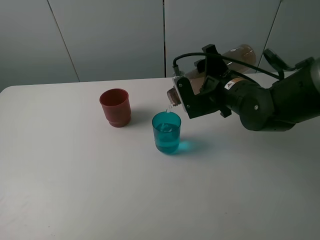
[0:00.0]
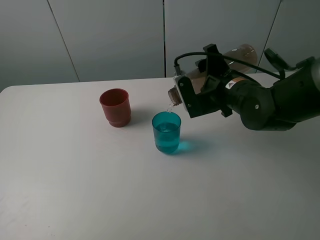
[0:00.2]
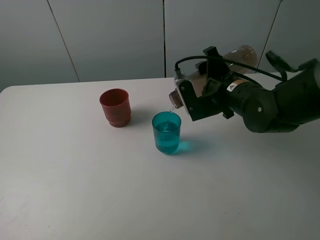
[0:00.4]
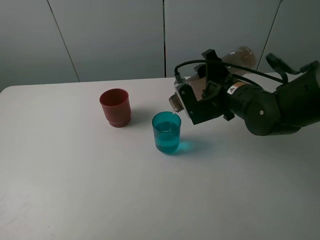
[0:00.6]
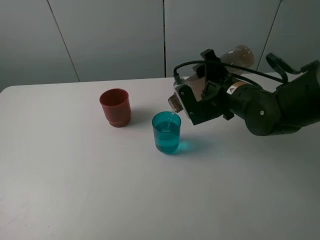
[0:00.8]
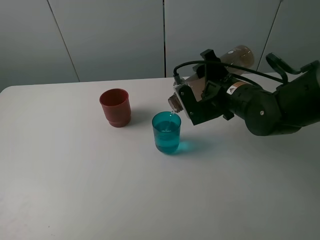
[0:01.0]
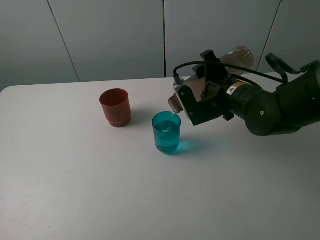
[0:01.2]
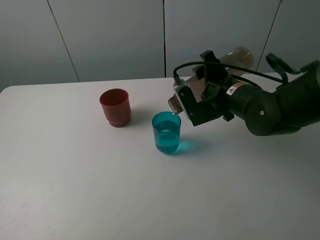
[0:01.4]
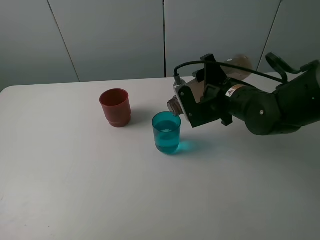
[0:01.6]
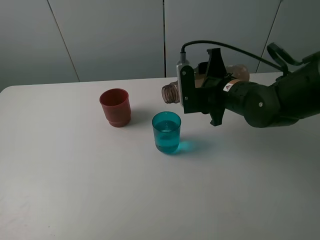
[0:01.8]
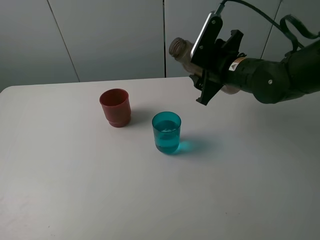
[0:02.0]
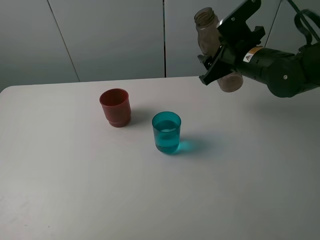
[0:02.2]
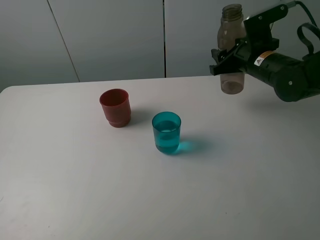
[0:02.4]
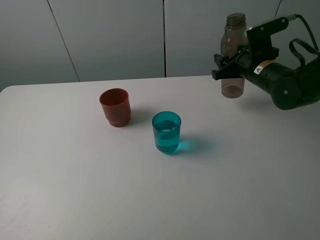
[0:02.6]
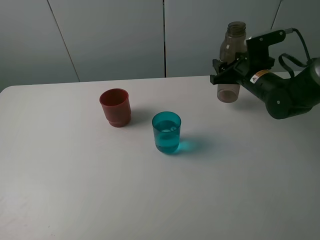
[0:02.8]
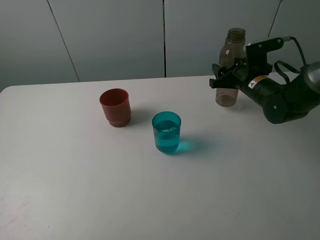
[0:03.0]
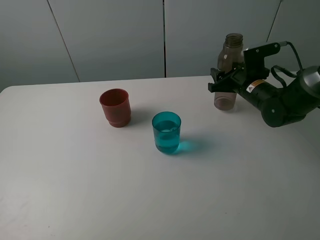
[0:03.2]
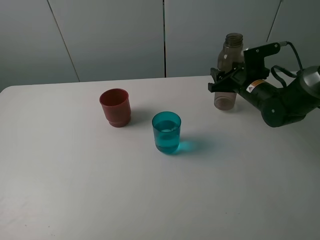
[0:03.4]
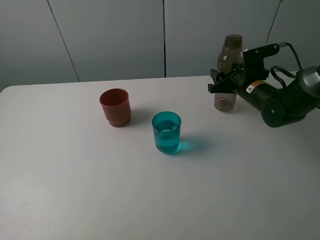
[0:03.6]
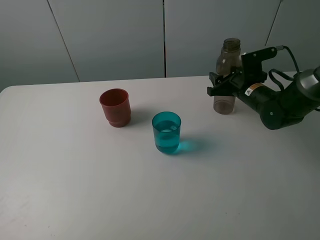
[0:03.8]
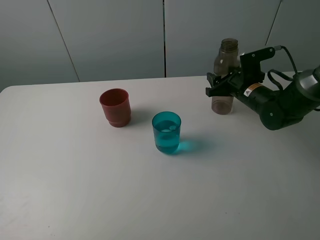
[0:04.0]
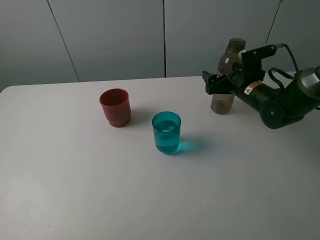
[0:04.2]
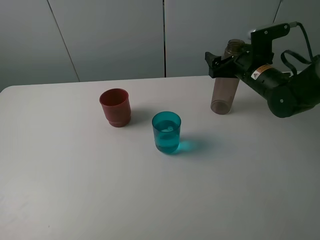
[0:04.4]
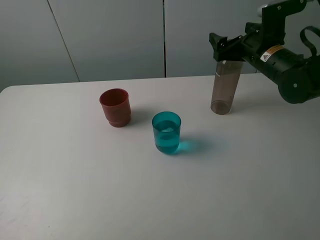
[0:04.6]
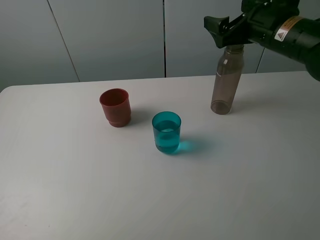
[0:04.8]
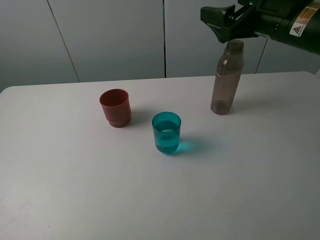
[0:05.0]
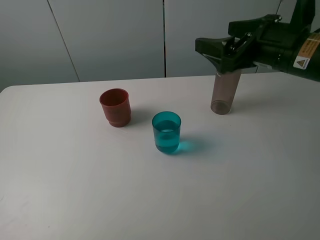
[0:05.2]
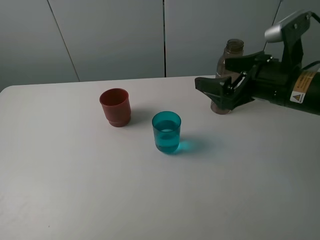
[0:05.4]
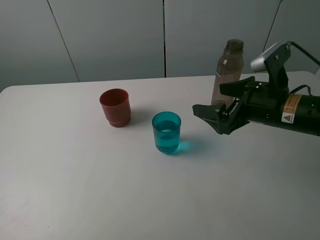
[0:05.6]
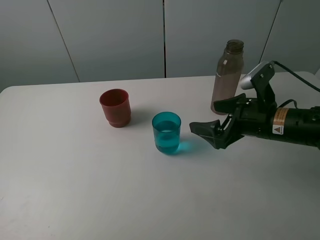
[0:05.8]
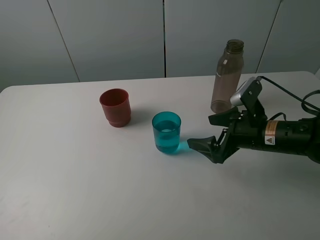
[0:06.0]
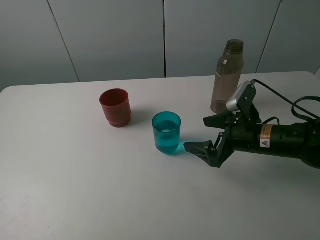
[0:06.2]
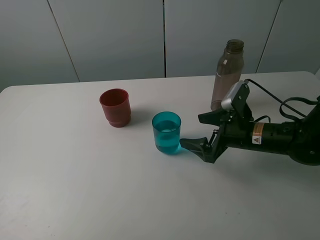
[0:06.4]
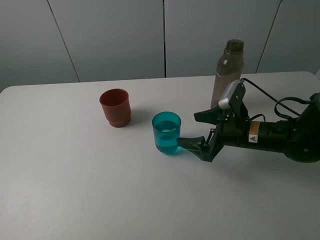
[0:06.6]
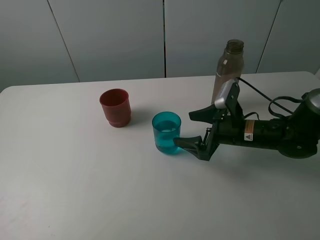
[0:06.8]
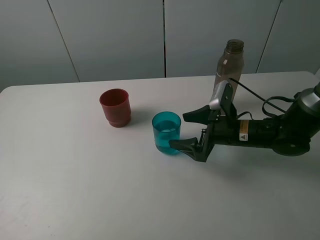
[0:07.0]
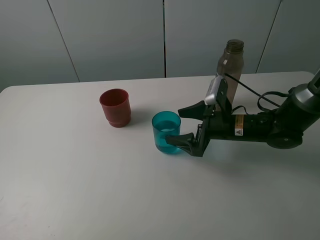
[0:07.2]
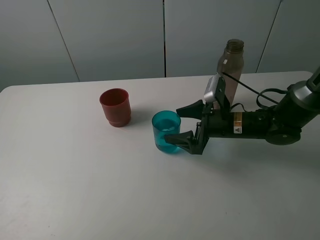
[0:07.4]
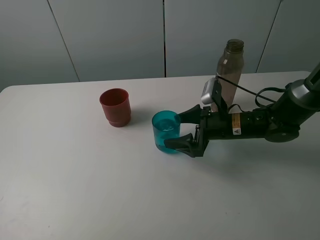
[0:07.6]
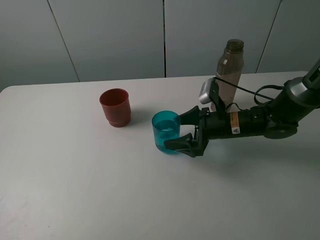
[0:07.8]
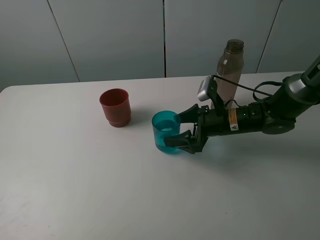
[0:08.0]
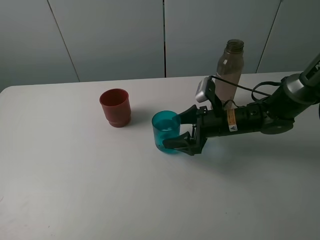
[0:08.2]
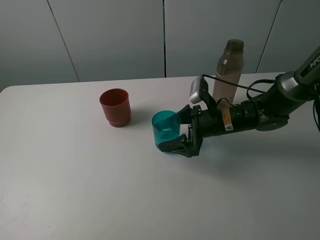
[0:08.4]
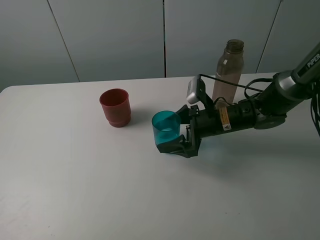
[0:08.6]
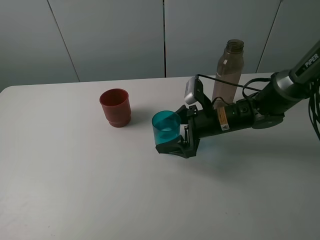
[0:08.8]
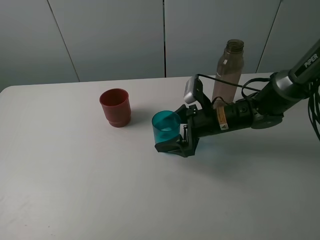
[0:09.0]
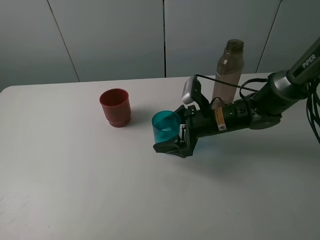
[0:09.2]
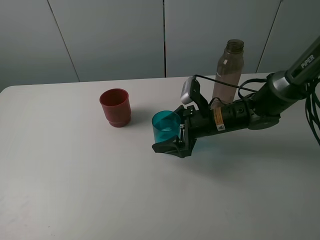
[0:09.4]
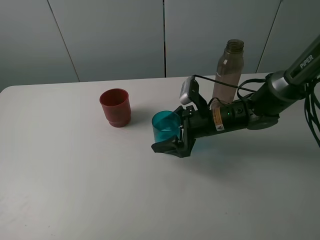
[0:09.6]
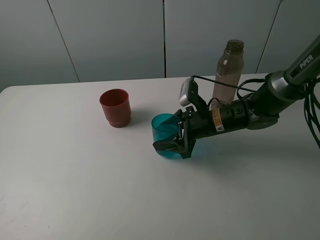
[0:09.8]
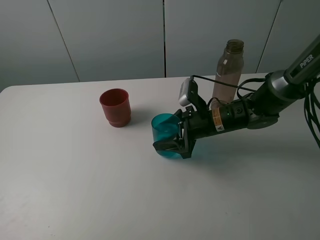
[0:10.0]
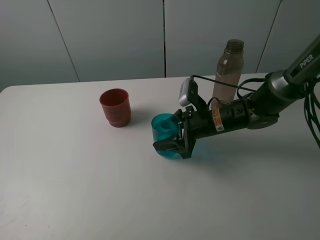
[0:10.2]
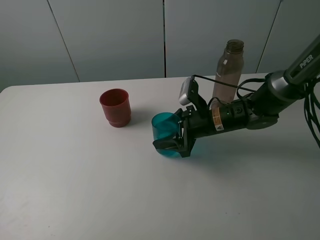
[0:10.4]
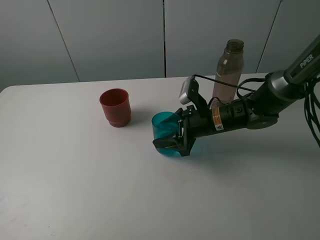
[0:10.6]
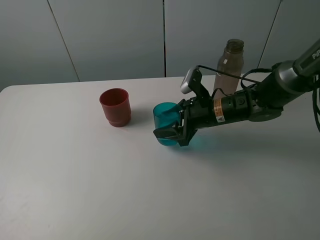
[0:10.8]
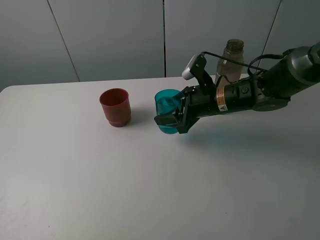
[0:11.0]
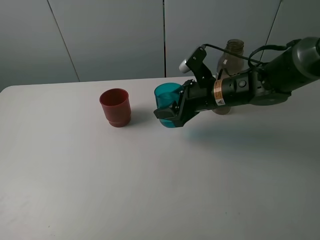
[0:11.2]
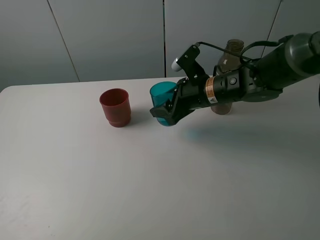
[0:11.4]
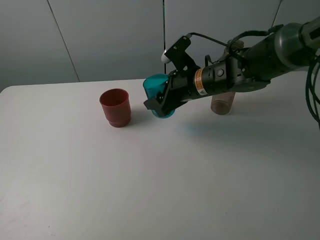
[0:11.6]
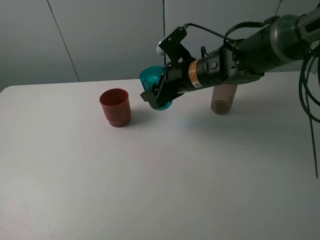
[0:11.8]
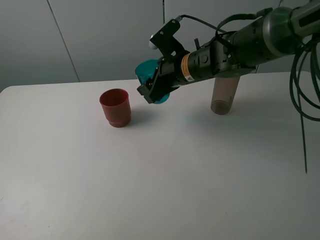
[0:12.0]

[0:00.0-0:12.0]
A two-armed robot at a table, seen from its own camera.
Task of the whole recording: pick up the bottle and pour water into the cup, then pick up the cup containing water and pour it into another cup.
Step, 0:02.0 to 0:04.2: Place the brown bottle with the right gripper.
Step, 0:04.4 to 0:10.0: Grasp the blue cup with the right gripper.
0:00.0 to 0:01.6: The grippers stay close to where they were, moving slightly.
0:01.6 to 0:03.0: The right gripper moves forward and to the right, some 10 cm.
0:03.0 to 0:04.4: The right gripper opens up.
0:04.4 to 0:06.0: The right gripper goes about 15 cm backward, and reaches approximately 10 cm upward, then returns.
0:06.0 to 0:07.6: The right gripper moves forward, about 5 cm.
0:07.6 to 0:09.0: The grippers make only small movements.
0:09.0 to 0:10.4: The right gripper closes.
0:10.4 to 0:12.0: The right gripper moves upward and to the left, roughly 15 cm.

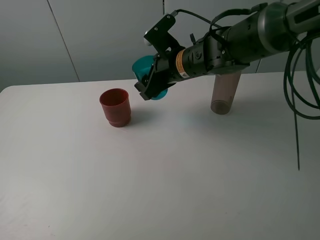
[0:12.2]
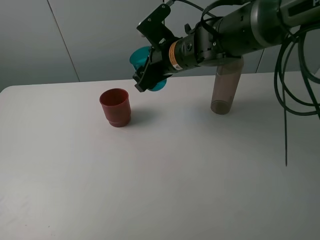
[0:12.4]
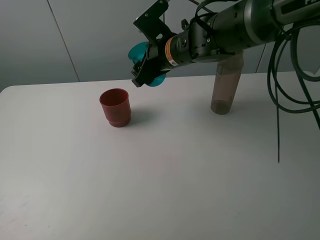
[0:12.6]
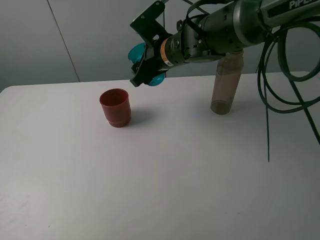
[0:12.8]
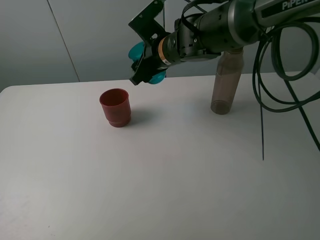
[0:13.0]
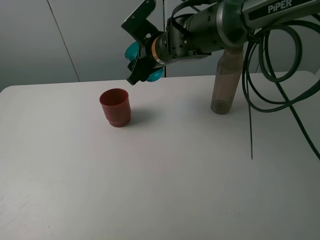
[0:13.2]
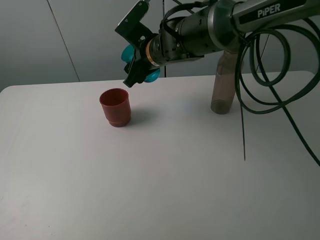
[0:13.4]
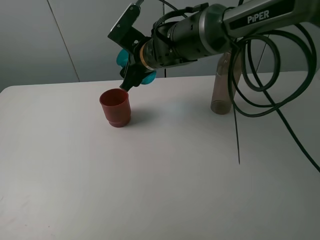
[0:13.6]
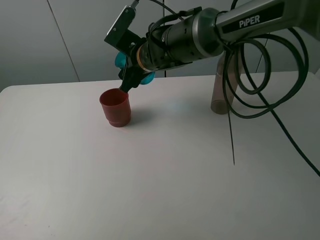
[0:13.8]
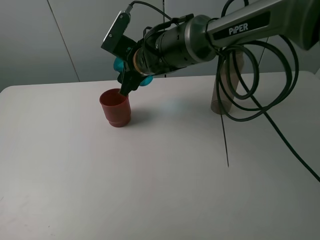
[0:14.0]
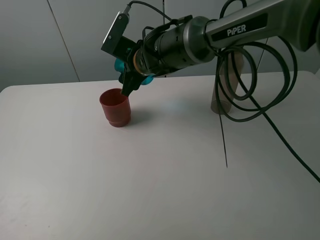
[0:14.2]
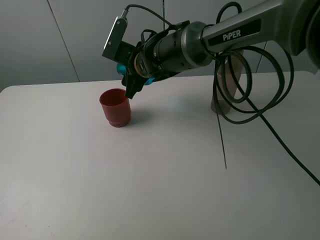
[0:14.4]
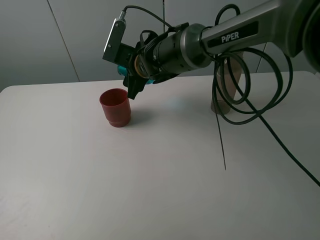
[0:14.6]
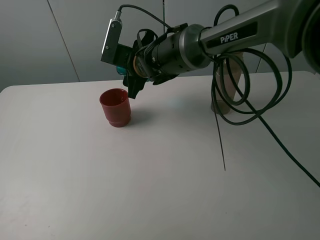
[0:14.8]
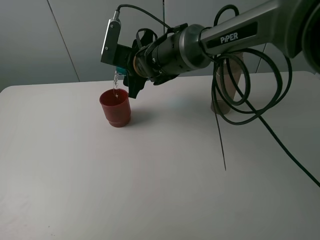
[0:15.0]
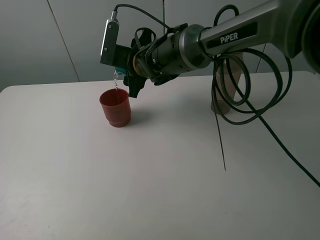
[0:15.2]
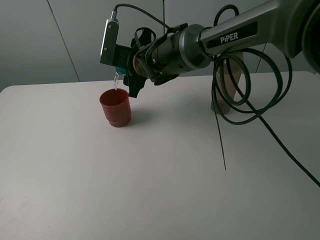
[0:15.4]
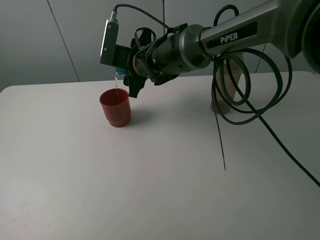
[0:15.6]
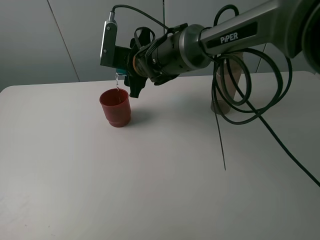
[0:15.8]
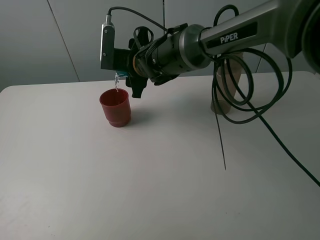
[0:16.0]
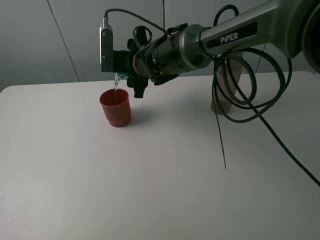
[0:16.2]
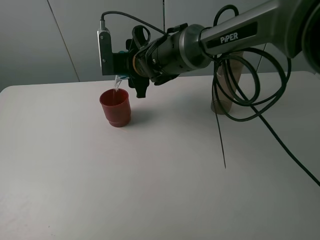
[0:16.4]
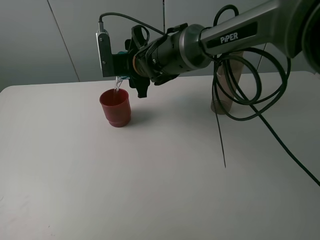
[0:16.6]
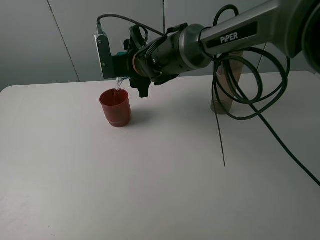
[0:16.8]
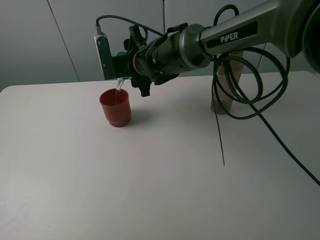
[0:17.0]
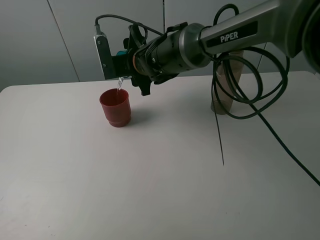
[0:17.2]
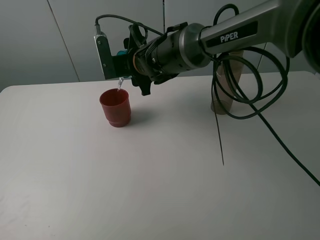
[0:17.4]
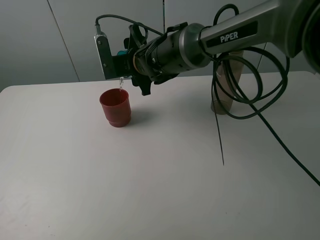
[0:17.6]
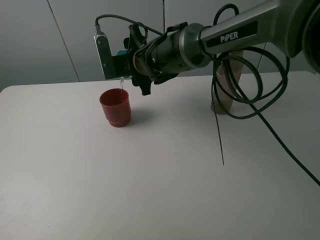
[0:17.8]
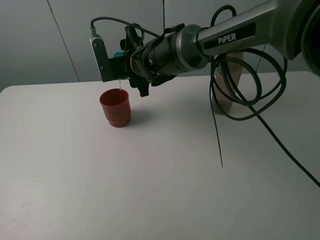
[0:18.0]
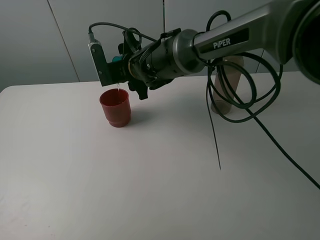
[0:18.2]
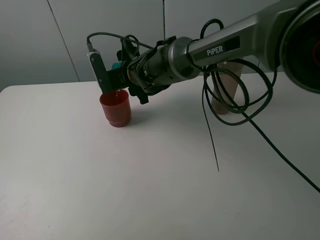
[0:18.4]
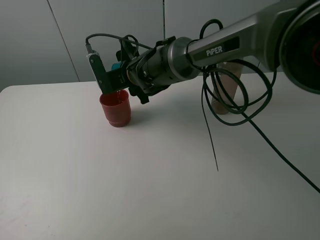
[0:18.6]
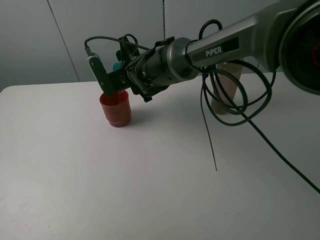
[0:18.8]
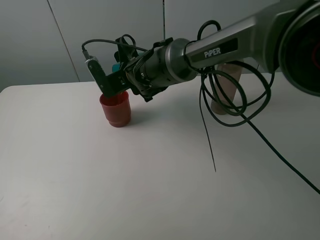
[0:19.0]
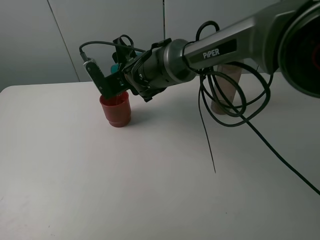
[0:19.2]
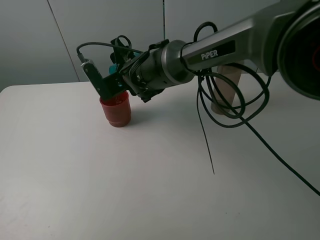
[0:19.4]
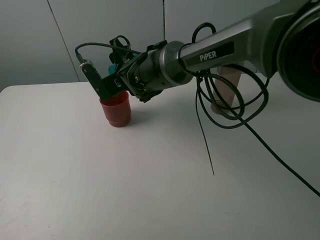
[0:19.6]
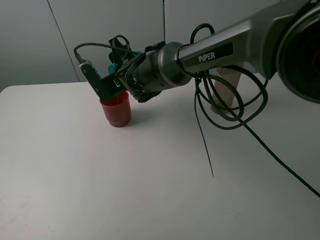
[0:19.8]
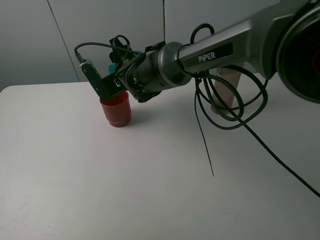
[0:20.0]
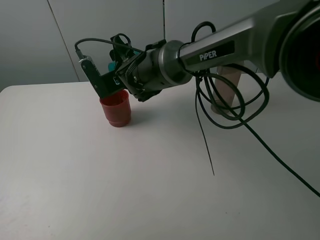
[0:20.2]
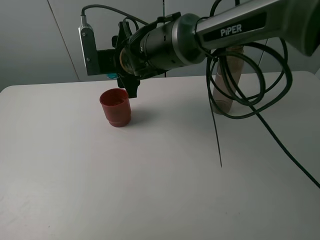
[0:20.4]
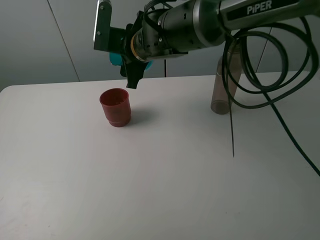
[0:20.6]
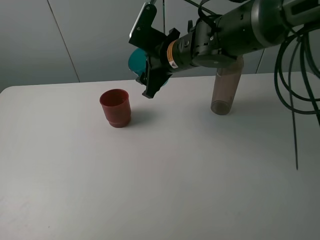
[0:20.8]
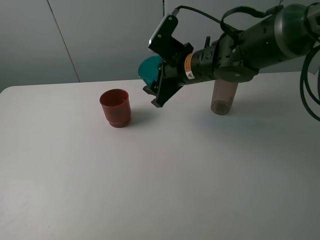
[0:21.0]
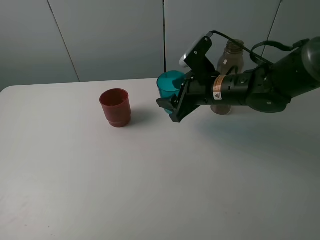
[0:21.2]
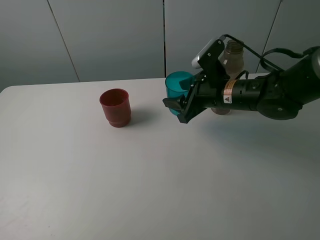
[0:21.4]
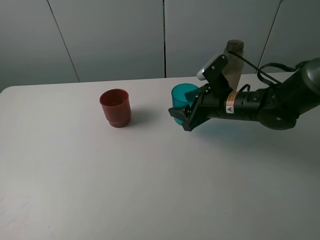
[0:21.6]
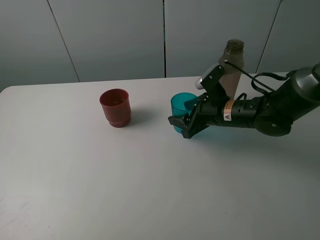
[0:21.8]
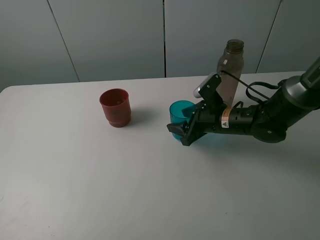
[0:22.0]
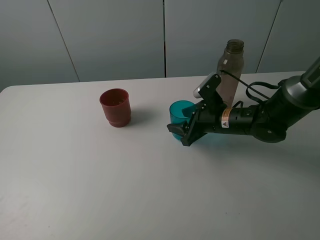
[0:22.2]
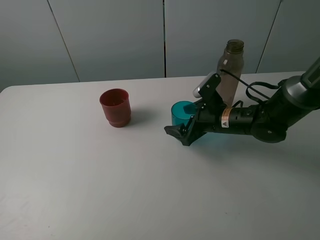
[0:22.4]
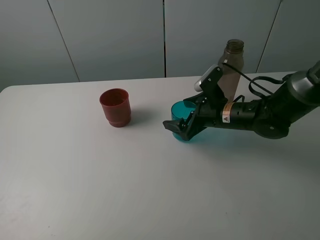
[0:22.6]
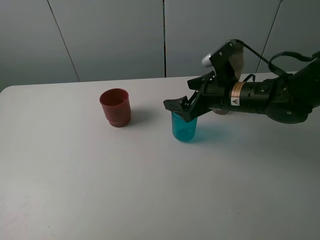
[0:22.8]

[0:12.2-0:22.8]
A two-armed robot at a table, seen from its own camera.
Task of the whole recording: pick up the bottle and pour water into the cup, then pick up the cup containing water and pour it into another cup.
Step, 0:12.2 to 0:18.4: Pour water from blue cup to red cup with the right gripper.
Step, 0:18.6 to 0:22.6: Place the blue cup with the right gripper.
0:12.2 to 0:13.8: The right gripper heads to the left, covering approximately 5 cm.
0:16.8 to 0:18.2: The grippers stay close to where they were, moving slightly.
0:18.2 to 0:19.8: The grippers stay close to where they were, moving slightly.
0:19.8 to 0:21.2: The right gripper goes about 15 cm to the right.
0:21.2 to 0:22.8: The right gripper goes downward and returns, some 10 cm each way, and opens up.
